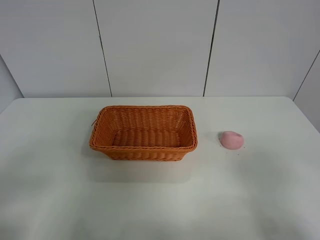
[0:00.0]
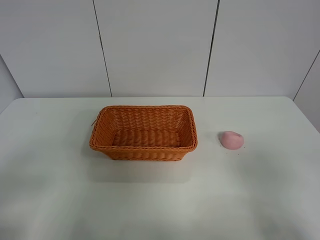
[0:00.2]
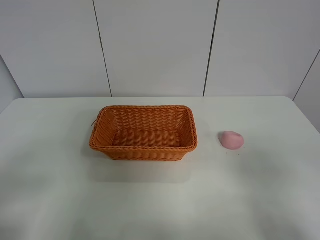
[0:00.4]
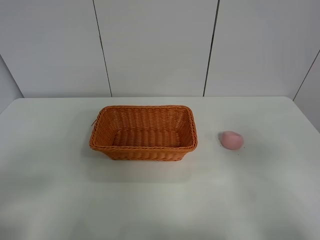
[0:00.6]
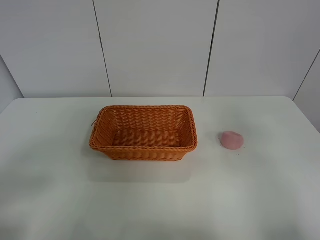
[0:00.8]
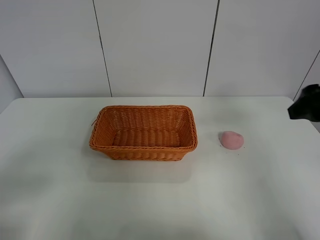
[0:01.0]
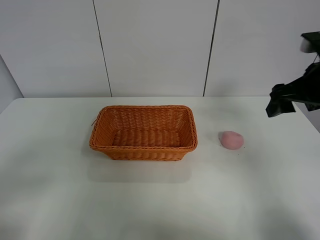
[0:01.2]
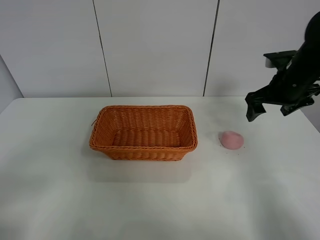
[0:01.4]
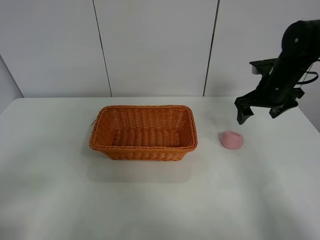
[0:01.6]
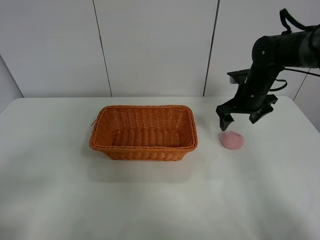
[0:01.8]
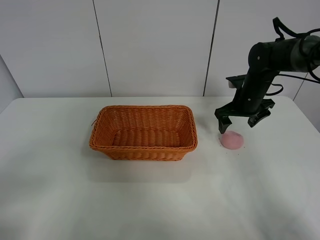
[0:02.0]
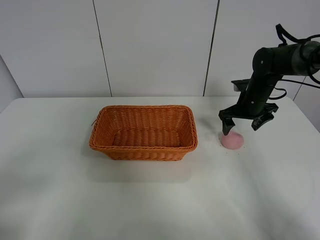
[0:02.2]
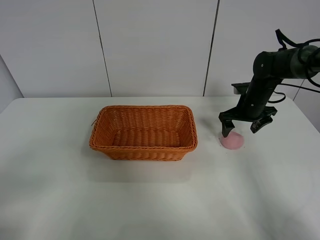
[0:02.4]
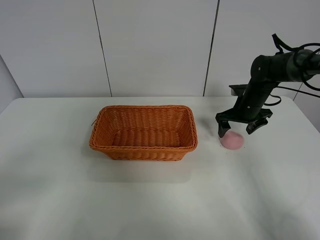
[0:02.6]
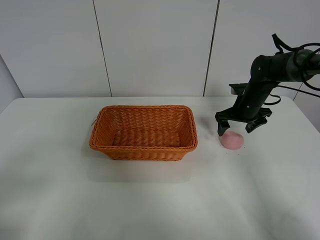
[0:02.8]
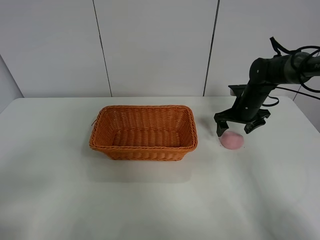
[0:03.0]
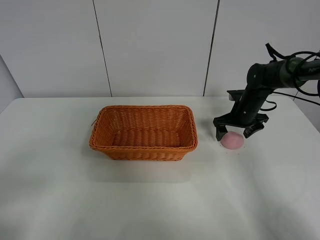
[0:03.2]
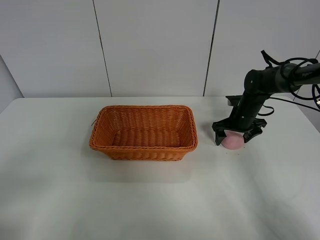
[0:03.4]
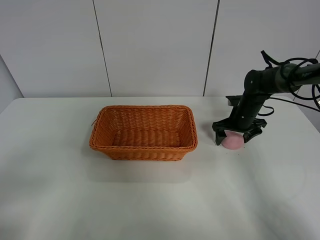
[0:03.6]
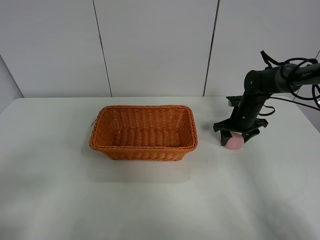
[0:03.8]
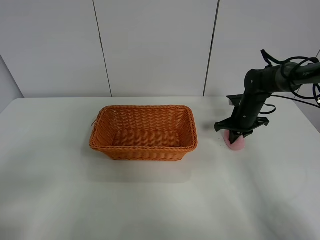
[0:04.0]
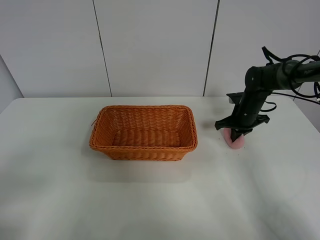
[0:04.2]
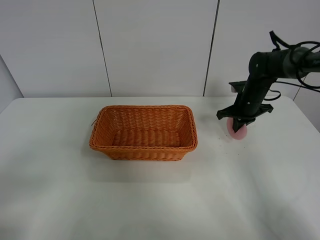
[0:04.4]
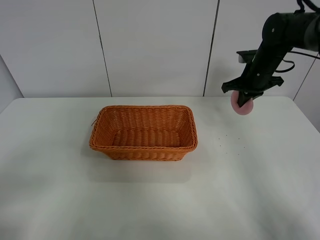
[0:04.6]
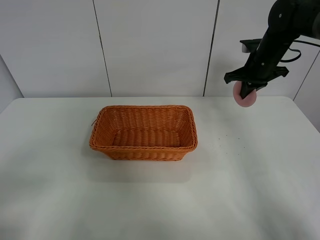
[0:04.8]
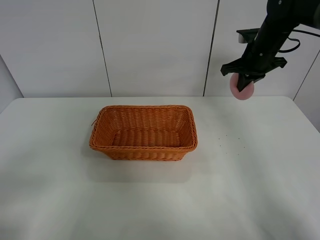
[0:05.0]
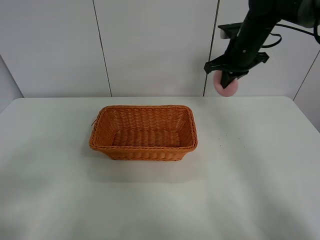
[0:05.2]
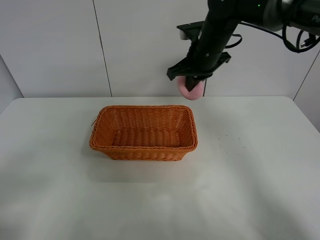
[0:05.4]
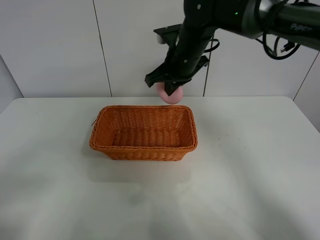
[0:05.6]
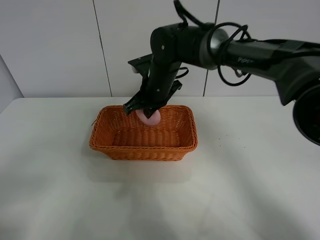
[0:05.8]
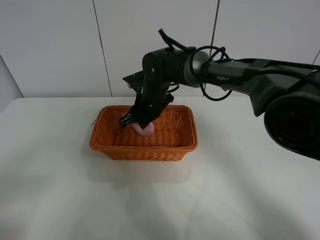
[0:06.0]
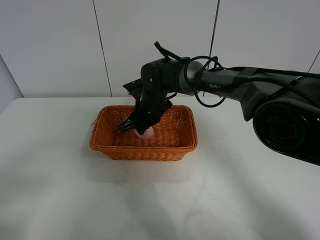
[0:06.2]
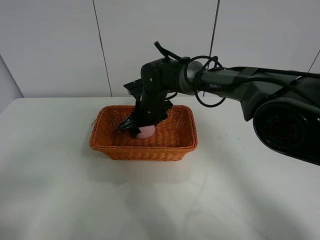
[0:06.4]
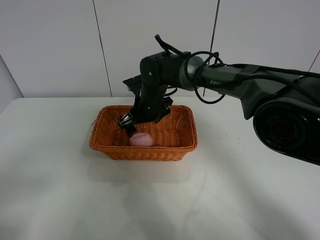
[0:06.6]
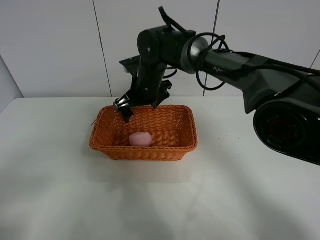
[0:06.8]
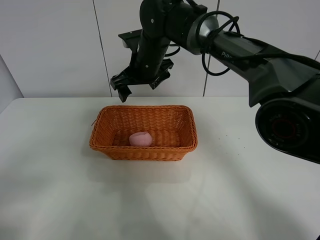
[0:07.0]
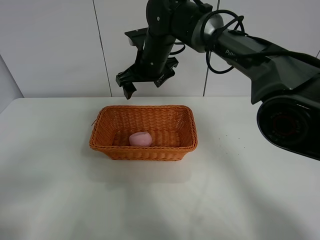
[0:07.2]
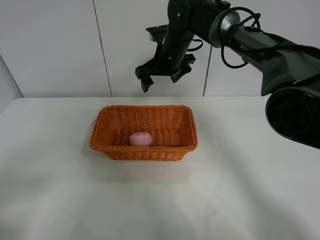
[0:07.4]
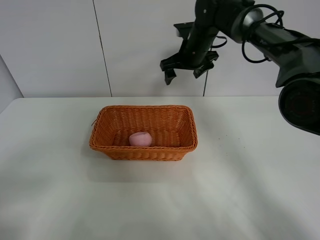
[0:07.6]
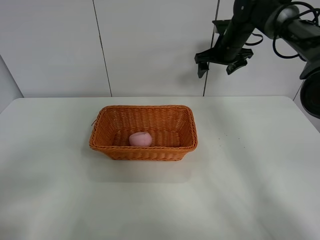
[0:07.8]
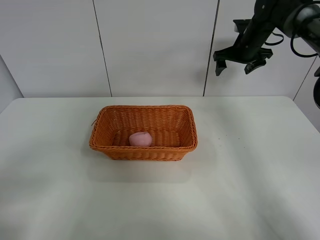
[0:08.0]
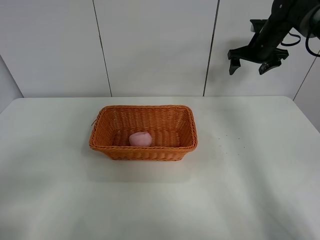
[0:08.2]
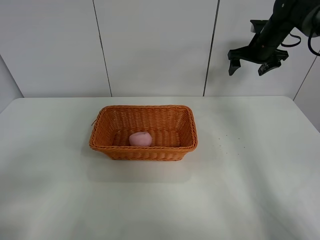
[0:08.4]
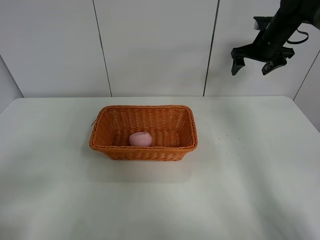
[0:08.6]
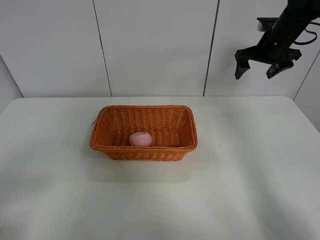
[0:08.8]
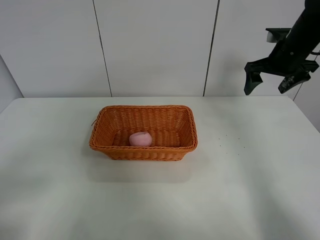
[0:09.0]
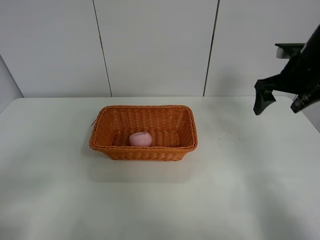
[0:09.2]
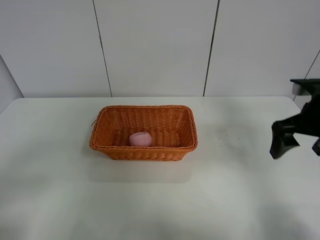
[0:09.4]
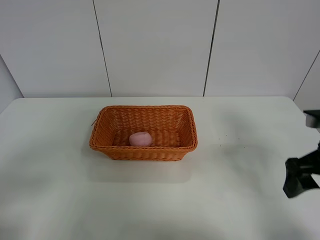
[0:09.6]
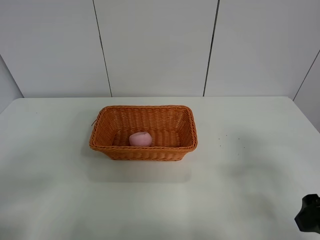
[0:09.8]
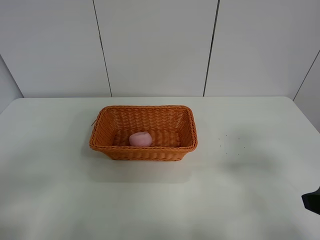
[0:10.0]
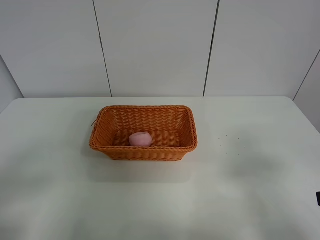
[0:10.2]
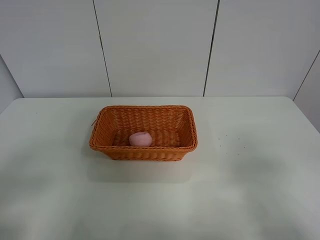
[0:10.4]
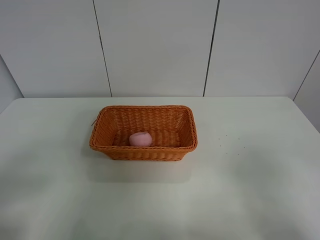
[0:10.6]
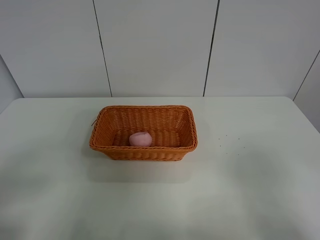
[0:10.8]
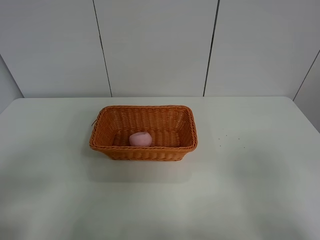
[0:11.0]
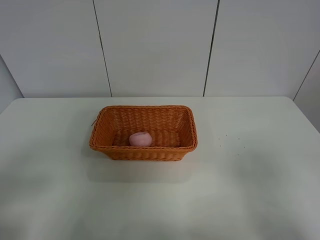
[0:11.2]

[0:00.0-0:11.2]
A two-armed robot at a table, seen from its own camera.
Step, 0:00.0 to 0:04.2: Grasp the peach with right gripper.
Step, 0:04.4 to 0:07.8: Place the peach in the basket with right gripper.
0:00.0 to 0:01.6: The right gripper shifts approximately 40 cm forward.
0:01.6 to 0:03.2: The right gripper is displaced downward by approximately 10 cm.
0:03.2 to 0:04.8: The right gripper travels upward by some 15 cm, and closes its fingers.
0:04.8 to 0:06.4: The right gripper moves to the left, some 25 cm, and opens.
0:06.4 to 0:08.0: The right gripper moves to the right, upward and forward, some 30 cm.
0:08.0 to 0:09.6: The right gripper is displaced backward by about 35 cm.
0:09.6 to 0:11.2: The right gripper heads backward, covering about 15 cm.
